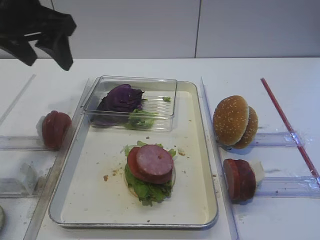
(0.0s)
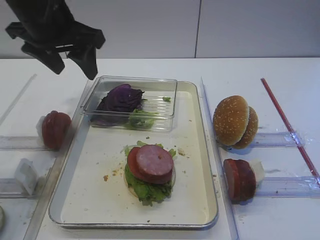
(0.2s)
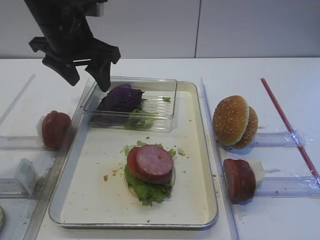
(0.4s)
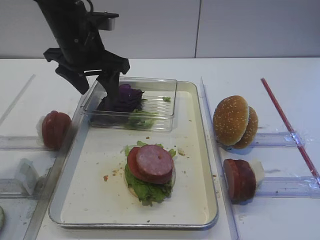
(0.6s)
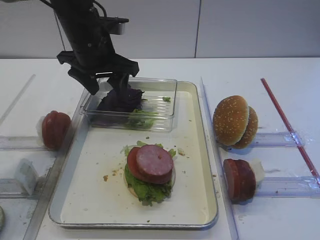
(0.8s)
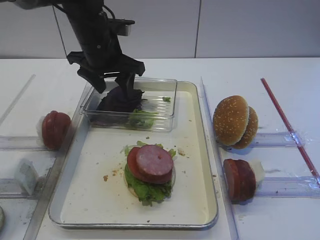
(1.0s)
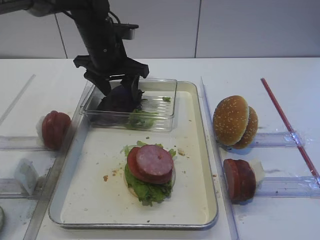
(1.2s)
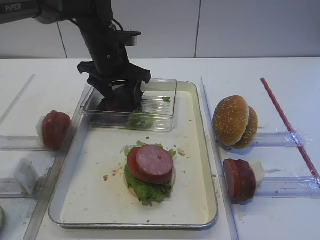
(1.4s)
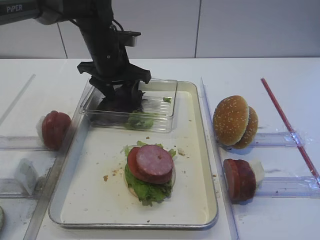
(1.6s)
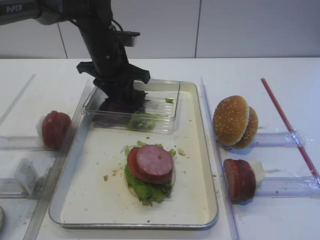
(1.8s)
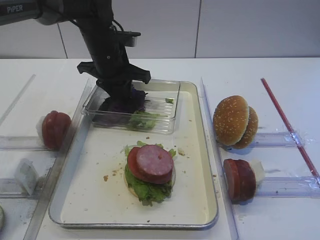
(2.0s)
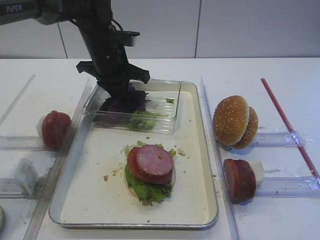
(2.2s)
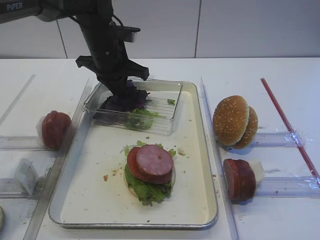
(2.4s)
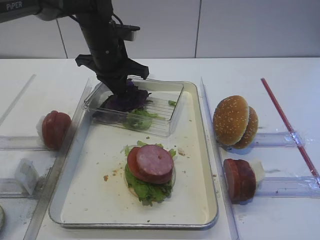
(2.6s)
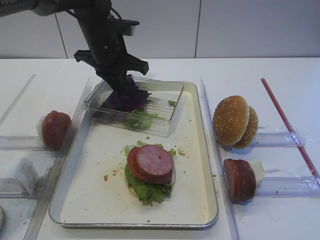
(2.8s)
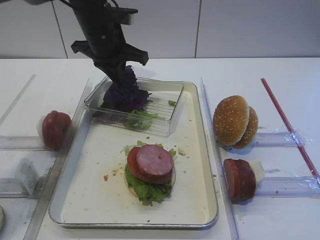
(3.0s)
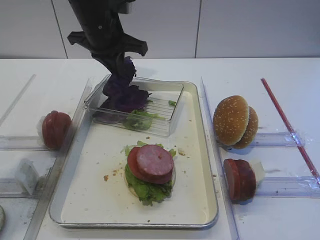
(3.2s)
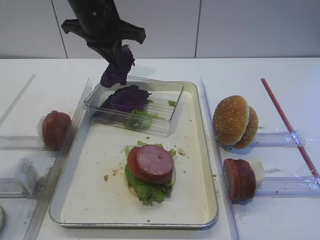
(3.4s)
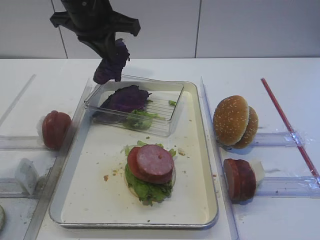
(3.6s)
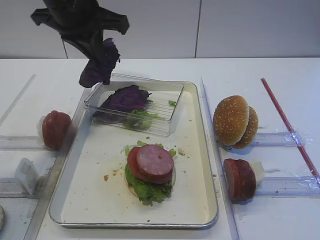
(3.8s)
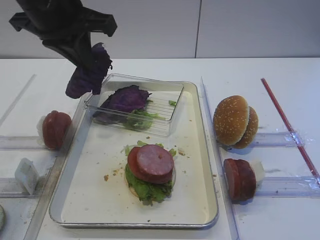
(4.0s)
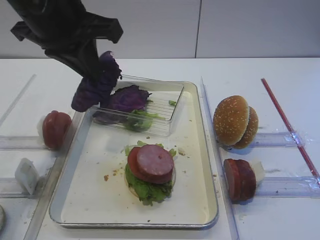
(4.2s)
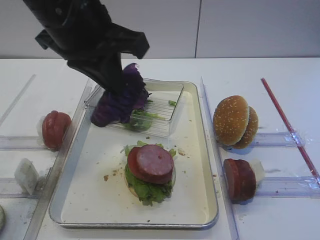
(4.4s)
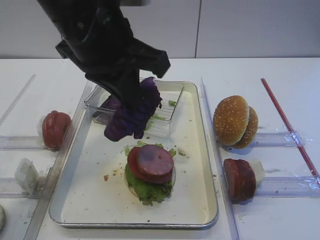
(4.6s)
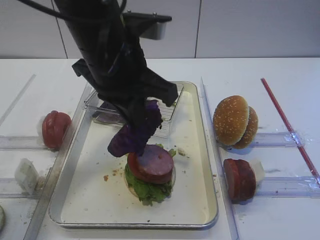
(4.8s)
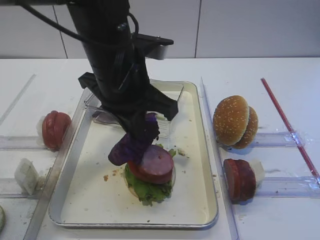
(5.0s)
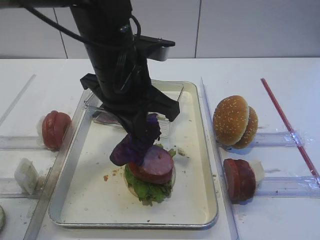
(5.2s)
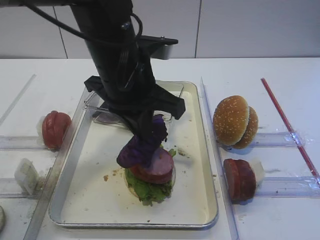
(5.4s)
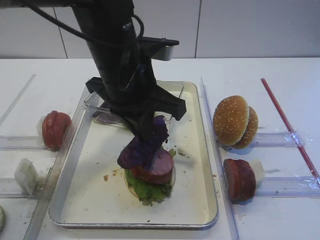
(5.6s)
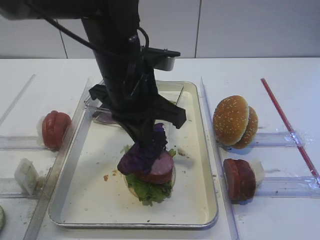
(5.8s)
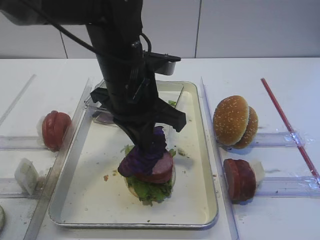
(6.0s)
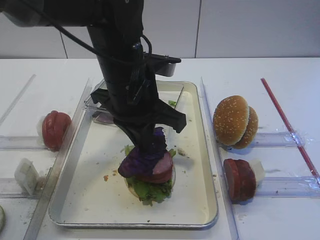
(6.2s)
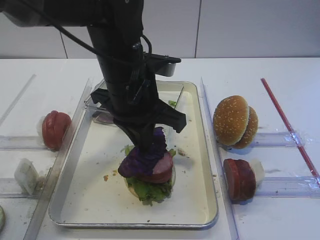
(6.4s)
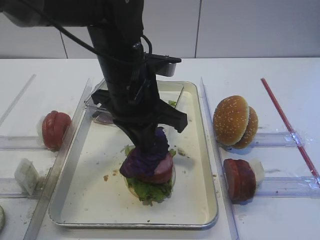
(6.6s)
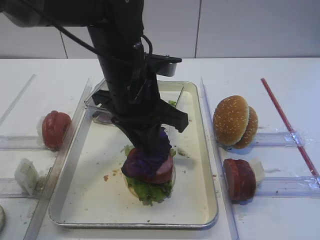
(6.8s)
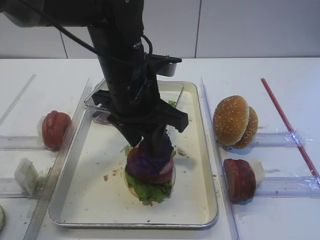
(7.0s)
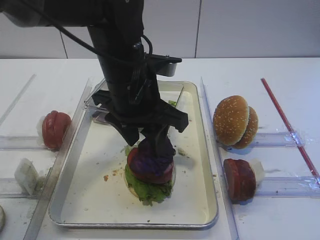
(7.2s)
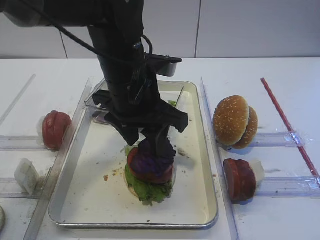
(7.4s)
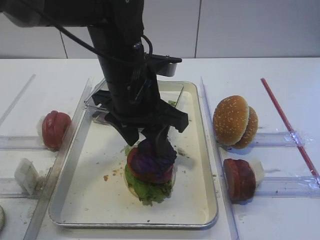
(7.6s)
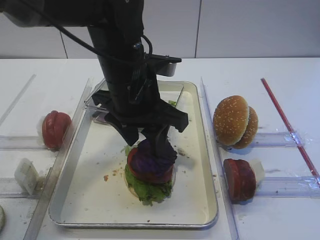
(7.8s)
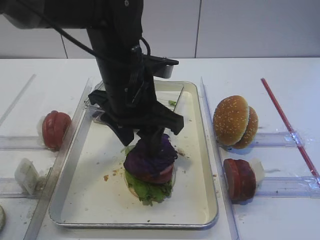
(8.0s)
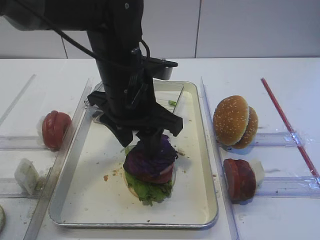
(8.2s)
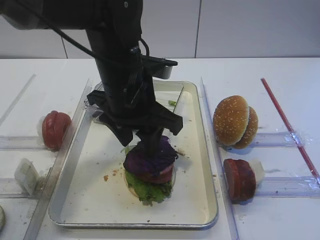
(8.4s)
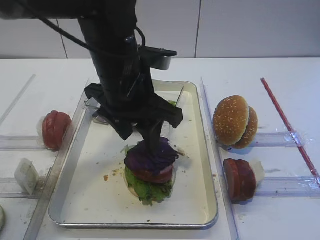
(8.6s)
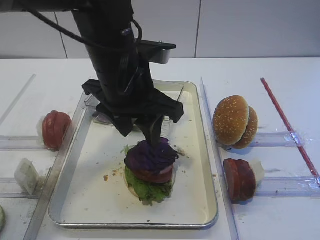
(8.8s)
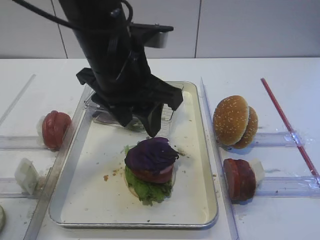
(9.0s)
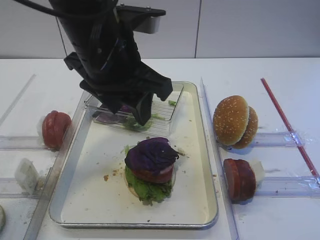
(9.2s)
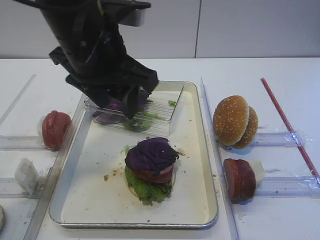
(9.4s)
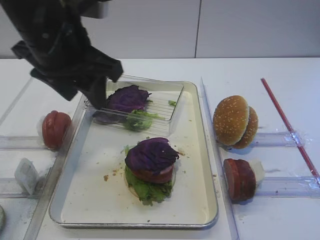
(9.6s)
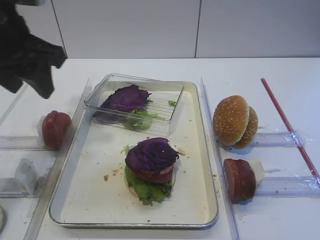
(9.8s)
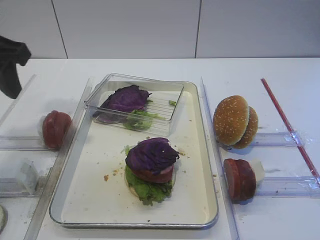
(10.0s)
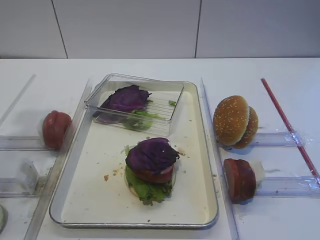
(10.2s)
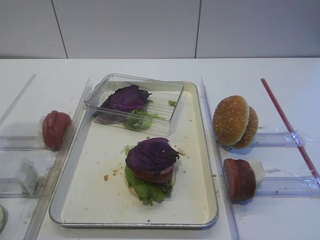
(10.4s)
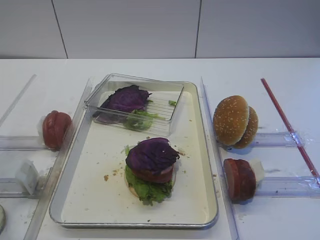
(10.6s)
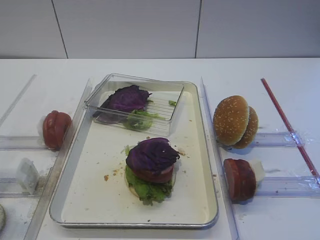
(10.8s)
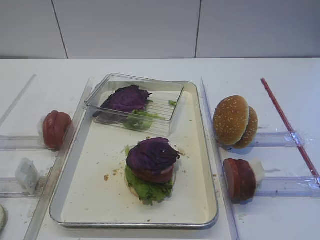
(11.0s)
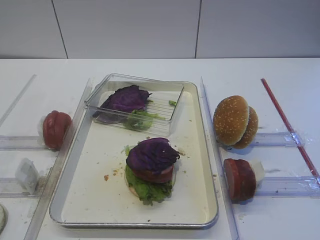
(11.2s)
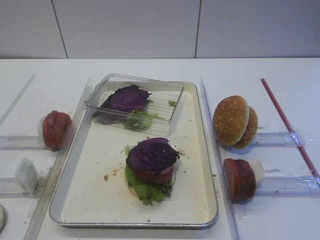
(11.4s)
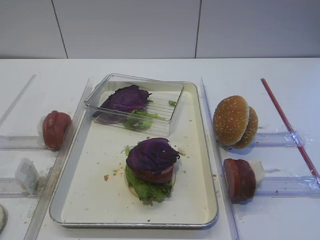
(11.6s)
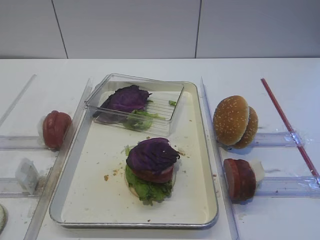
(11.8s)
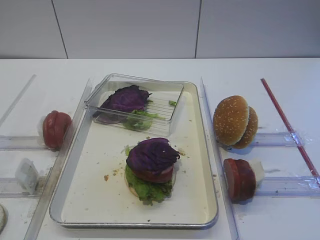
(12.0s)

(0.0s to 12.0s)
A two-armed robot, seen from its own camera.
Step, 0.0s - 3.4s: Pick up the purple cabbage with the left gripper.
Step, 3.6s - 8.8s: Place the purple cabbage on the cutlet with the left gripper.
0.0s - 1.6s: The left gripper shifts roughly 20 cm downward, forward and to the right.
1.6s - 3.0s: The left gripper closes.
3.0s - 4.4s: The left gripper goes some 20 cm backward and upward.
4.4s - 6.0s: The left gripper travels downward and to the right by approximately 10 cm.
6.0s - 7.6s: The left gripper opens.
7.6s - 9.0s: The grippers make only small movements.
9.0s - 10.4s: The left gripper heads to the left, covering approximately 20 cm.
10.4s - 12.0s: The left gripper is displaced backward by approximately 20 cm.

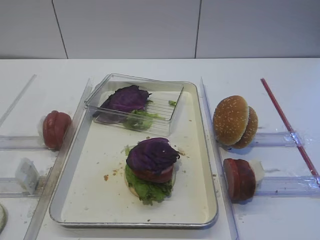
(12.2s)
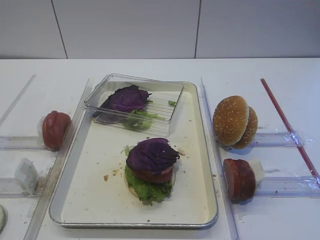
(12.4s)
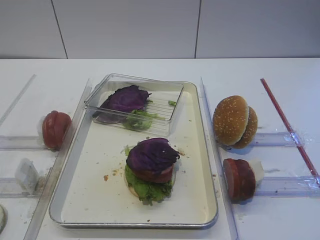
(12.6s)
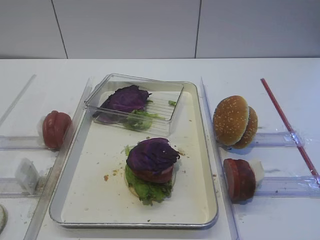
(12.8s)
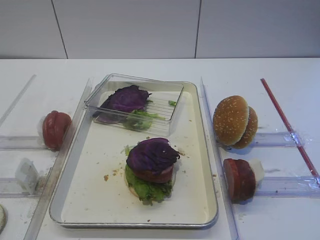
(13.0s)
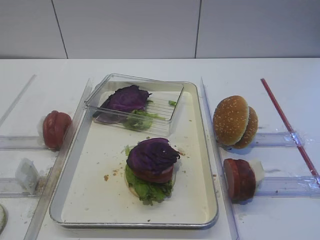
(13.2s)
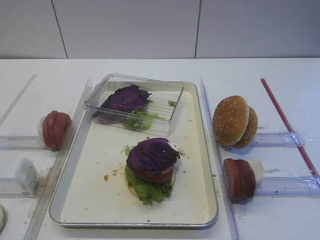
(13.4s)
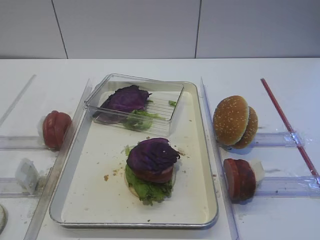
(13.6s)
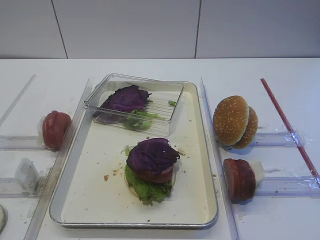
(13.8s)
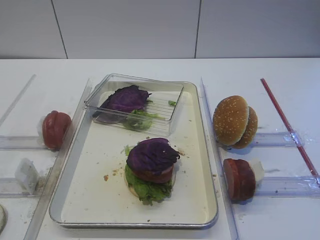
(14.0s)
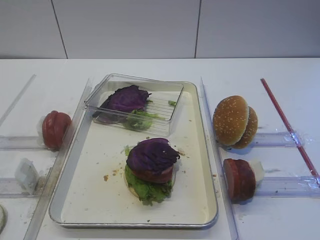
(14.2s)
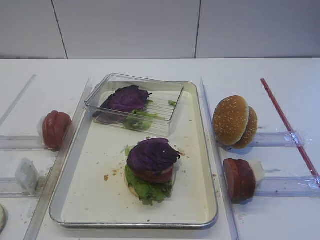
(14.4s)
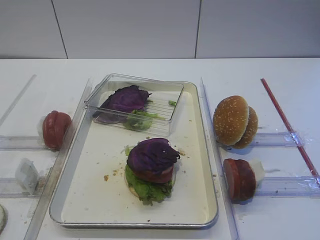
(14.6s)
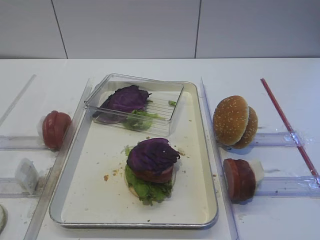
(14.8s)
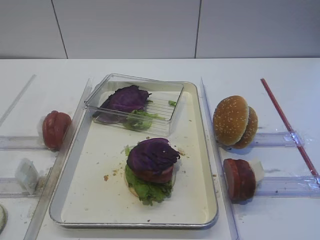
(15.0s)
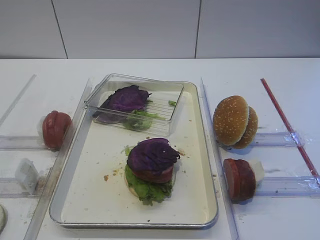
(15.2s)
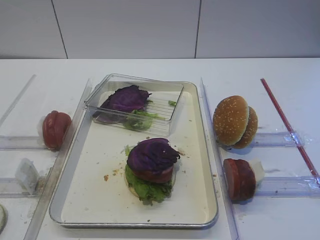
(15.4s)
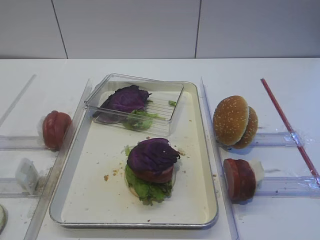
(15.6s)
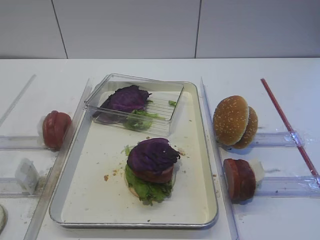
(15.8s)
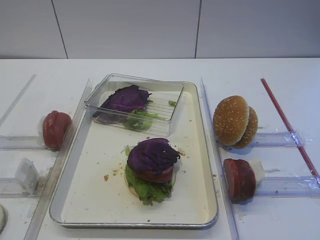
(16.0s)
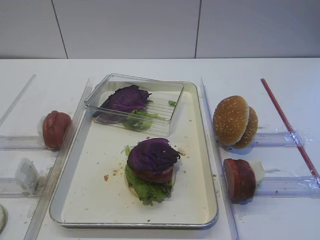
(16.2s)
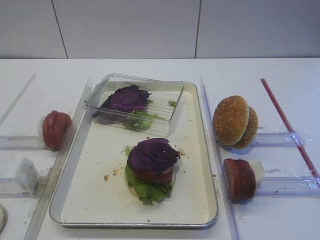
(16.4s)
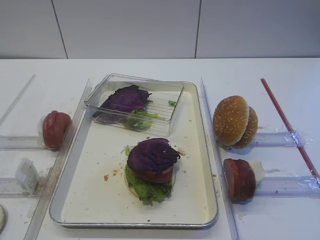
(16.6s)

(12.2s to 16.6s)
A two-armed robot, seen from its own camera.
12.2s - 16.6s: Neither gripper changes place.

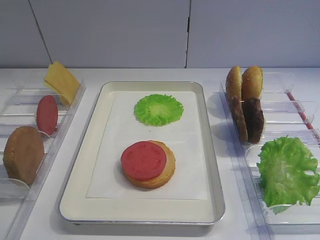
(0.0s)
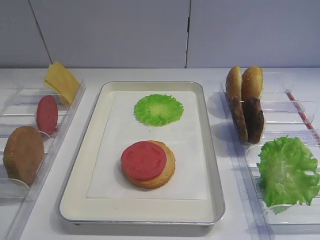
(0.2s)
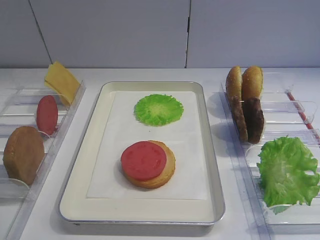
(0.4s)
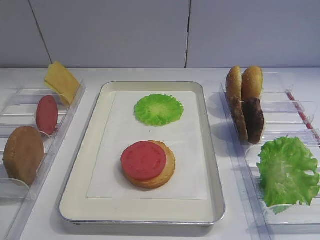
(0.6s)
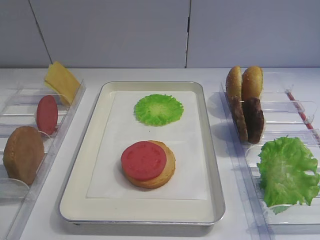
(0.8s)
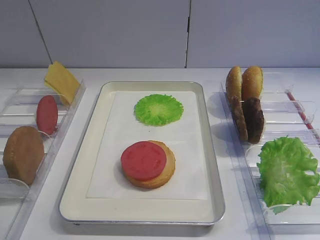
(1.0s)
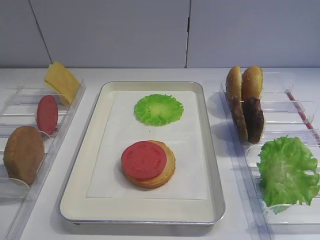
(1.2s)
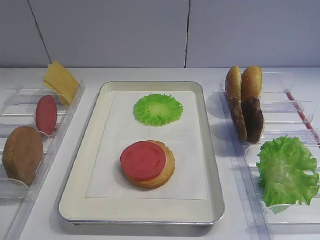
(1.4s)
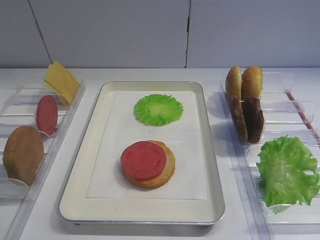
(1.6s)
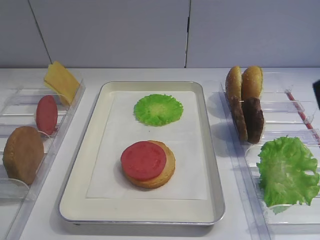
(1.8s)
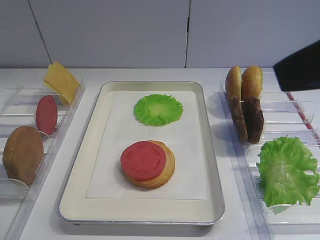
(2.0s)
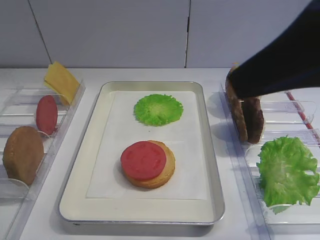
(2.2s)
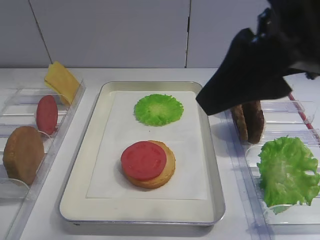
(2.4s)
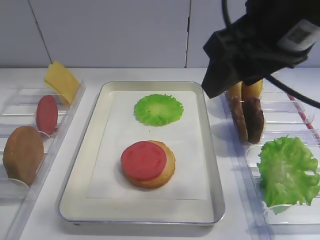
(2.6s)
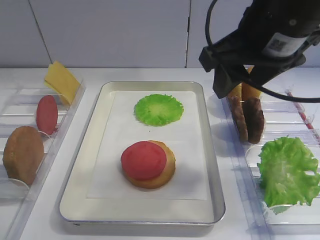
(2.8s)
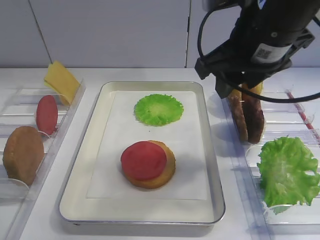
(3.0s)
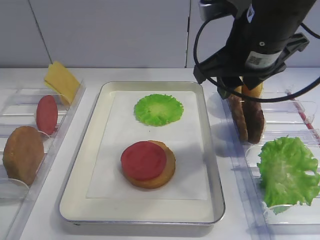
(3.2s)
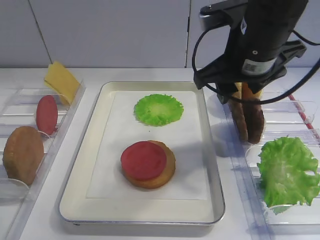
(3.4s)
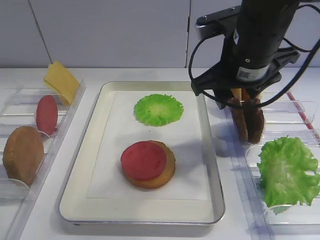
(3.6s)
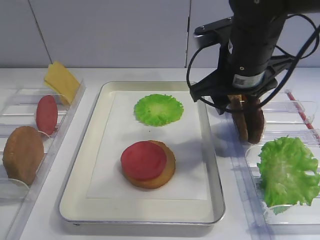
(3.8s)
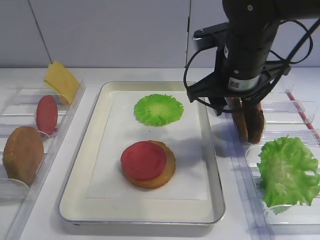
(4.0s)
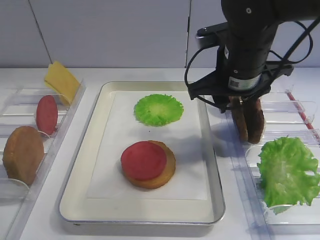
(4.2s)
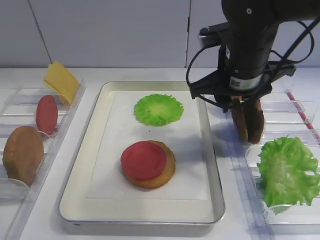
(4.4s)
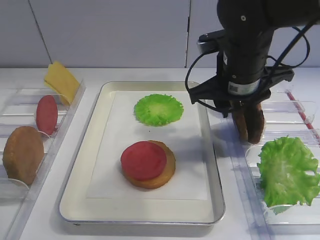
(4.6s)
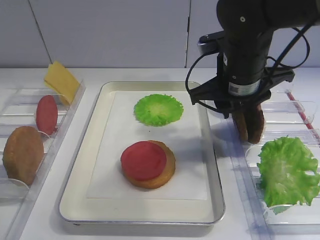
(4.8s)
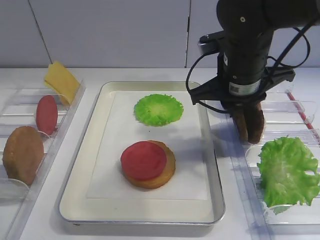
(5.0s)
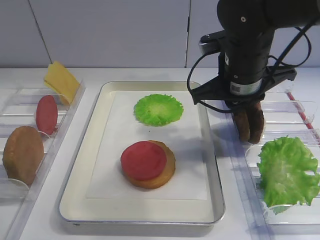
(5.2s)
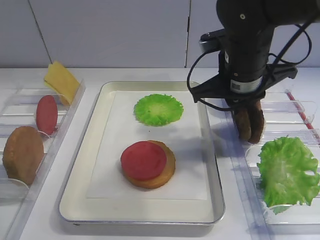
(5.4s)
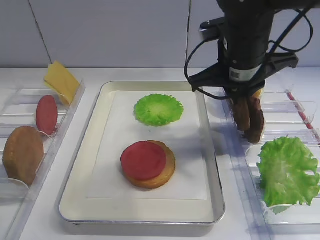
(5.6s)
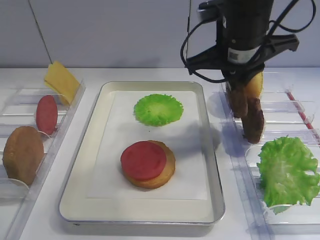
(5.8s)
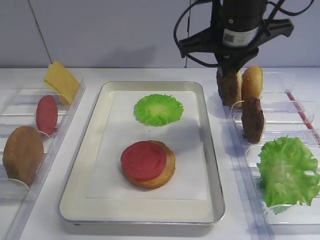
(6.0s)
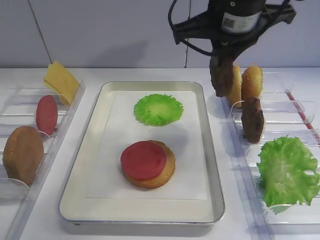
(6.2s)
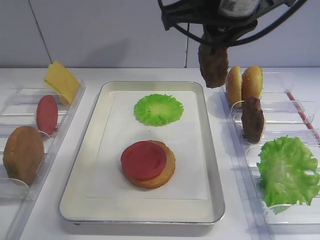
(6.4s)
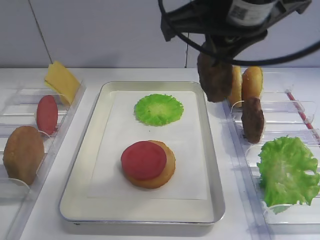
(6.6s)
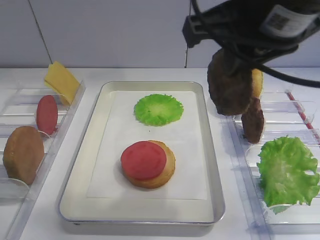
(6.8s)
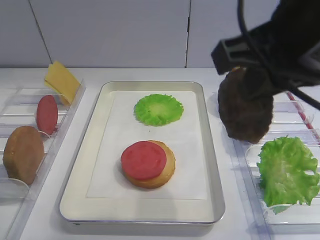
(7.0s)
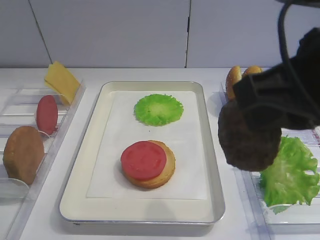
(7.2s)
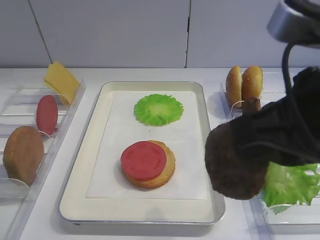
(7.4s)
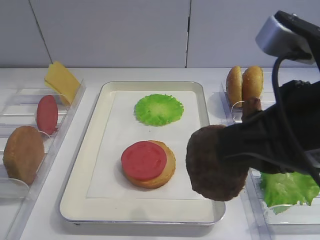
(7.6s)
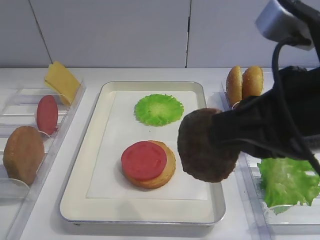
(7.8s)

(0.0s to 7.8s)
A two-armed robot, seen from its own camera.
Step, 0.0s - 5.4s: Pick up the cutlet with the right gripper.
1.6s - 3.2s: The right gripper travels forward and to the left by some 25 cm.
3.2s - 4.6s: The right gripper goes about 5 cm downward.
4.6s - 6.2s: The right gripper heads upward, covering some 10 cm, and closes.
6.2s - 7.8s: The right gripper moves backward, approximately 20 cm.
